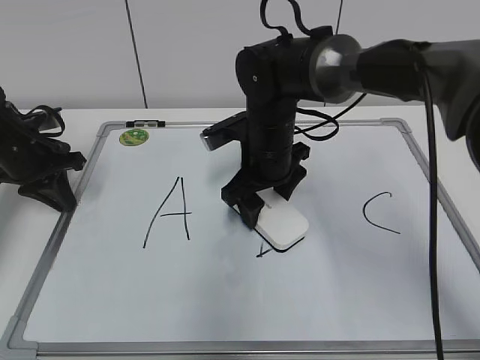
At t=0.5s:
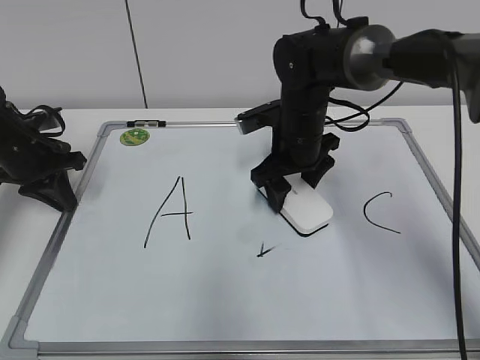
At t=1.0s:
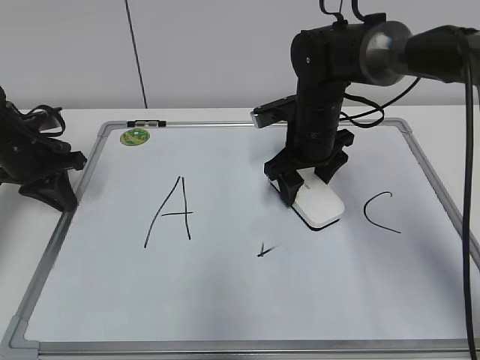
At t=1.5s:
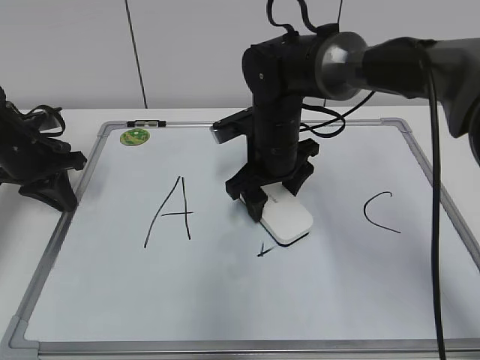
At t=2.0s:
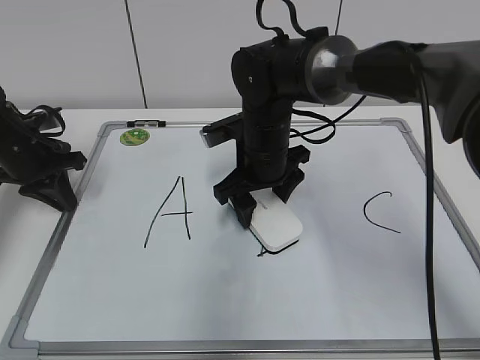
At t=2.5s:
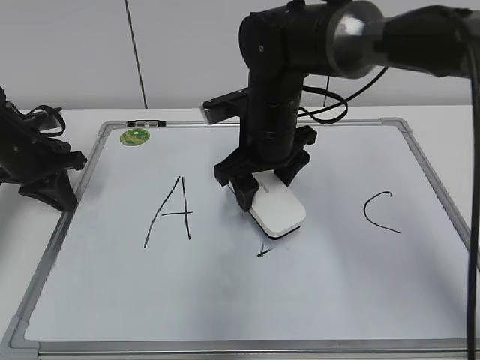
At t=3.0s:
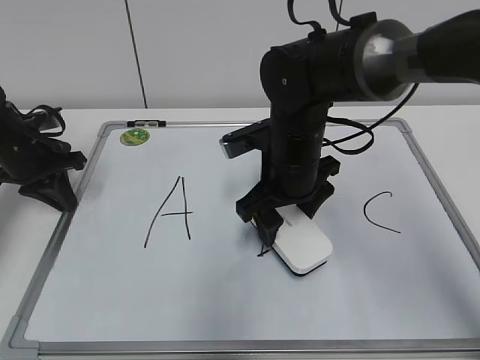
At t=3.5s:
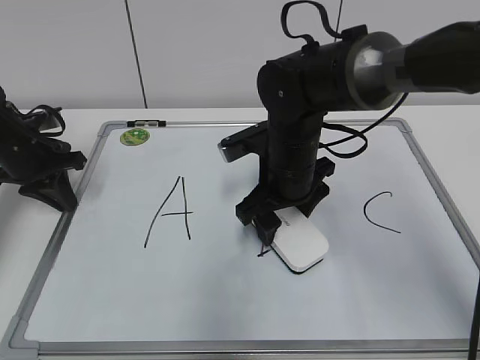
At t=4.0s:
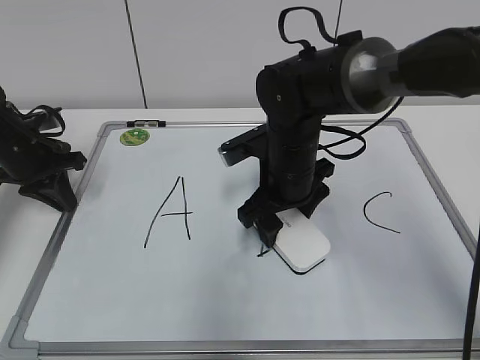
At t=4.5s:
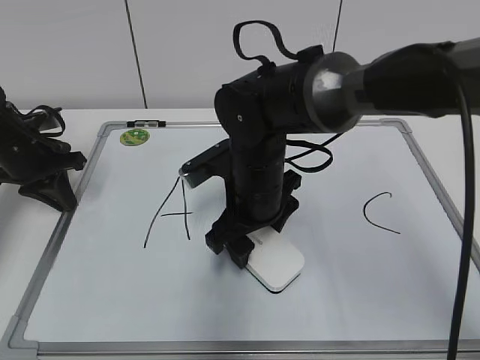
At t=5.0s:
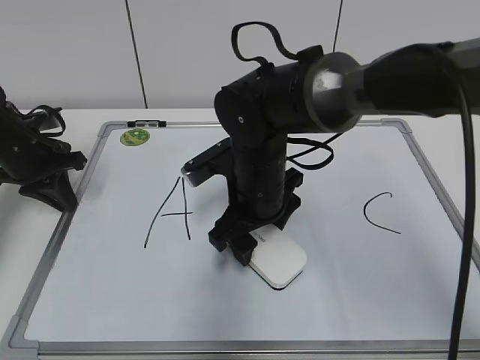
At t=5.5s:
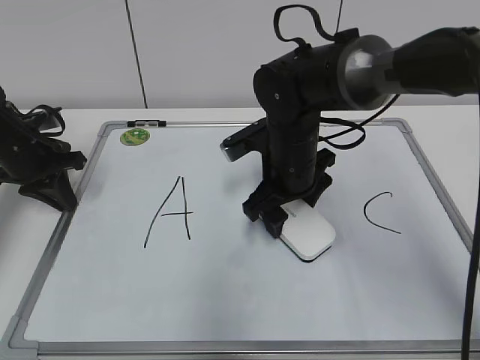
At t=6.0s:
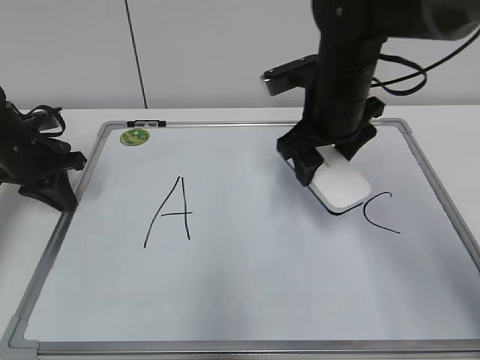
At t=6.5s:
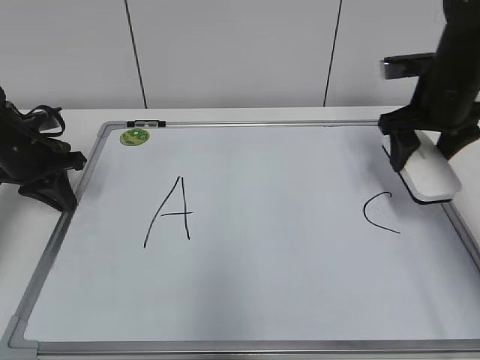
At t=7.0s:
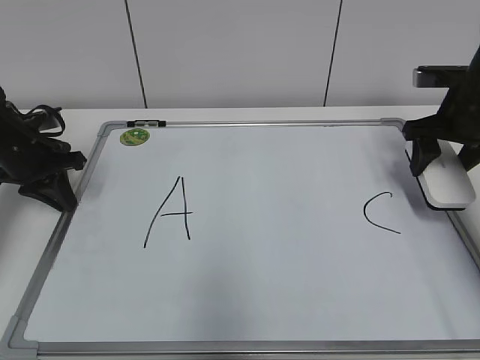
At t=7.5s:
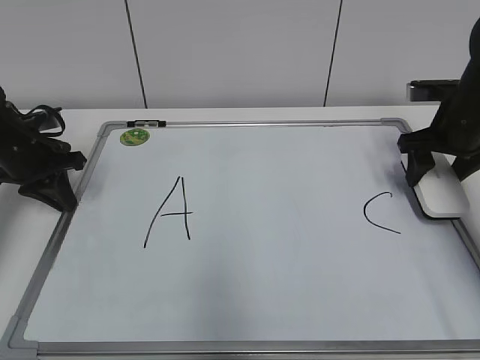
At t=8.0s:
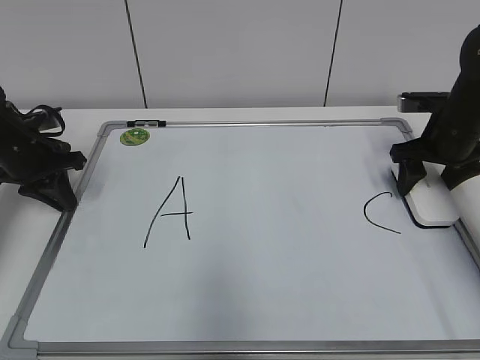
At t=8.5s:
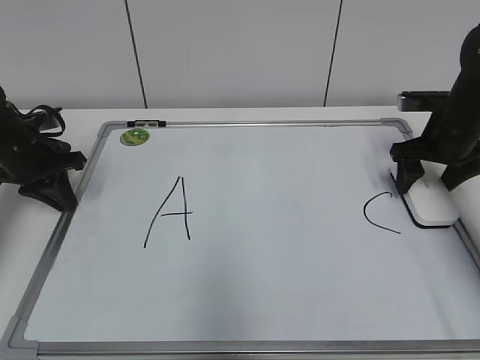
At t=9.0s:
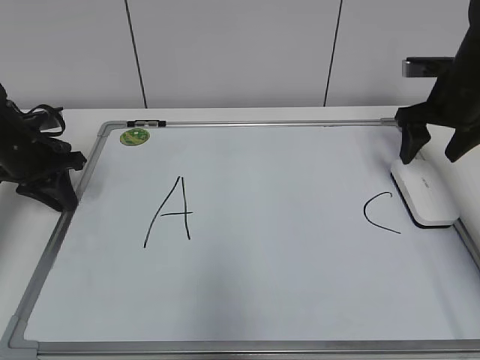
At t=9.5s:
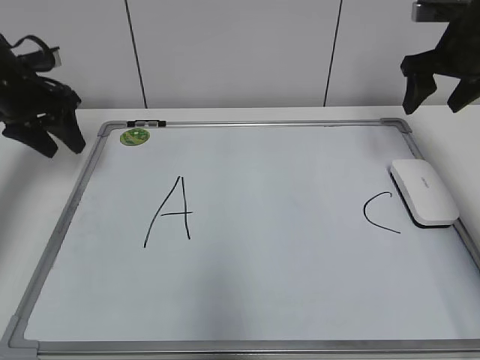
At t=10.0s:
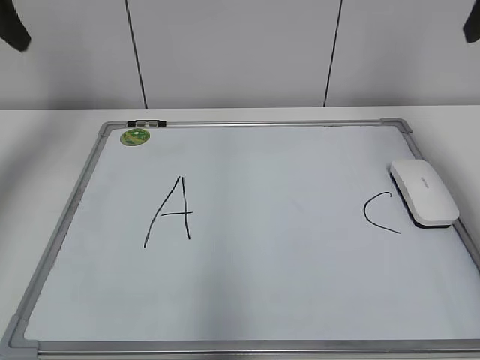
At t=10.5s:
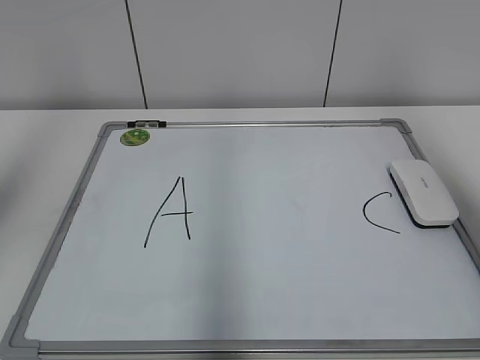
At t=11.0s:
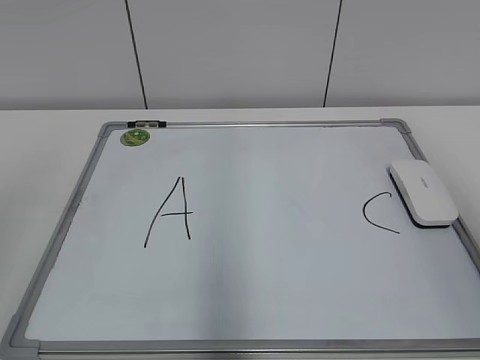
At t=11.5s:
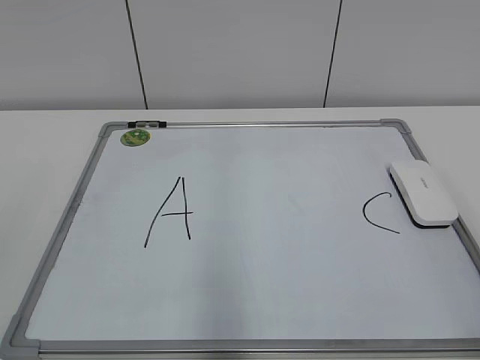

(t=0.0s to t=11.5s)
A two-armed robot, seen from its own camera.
Task of the whole recording: pick up the eraser on the blackboard and erase the letter "B".
Step, t=0.0s - t=5.0s: Erase the letter B with your right hand.
Step, t=5.5s - t=8.5s: Put down the eraser with your right hand.
t=2.0s - t=4.0s: There are only small adjustments of the grippers.
t=4.0s - t=6.0s: The right gripper travels upward and to the right by approximately 10 cm.
t=6.0s - t=7.5s: The right gripper shifts about 20 cm to the right.
t=7.5s - t=9.5s: Both grippers travel together upward, about 10 cm. The left gripper opens its fingers. Meanwhile the right gripper opens.
t=9.5s - t=11.5s: Both grippers move backward, roughly 40 cm.

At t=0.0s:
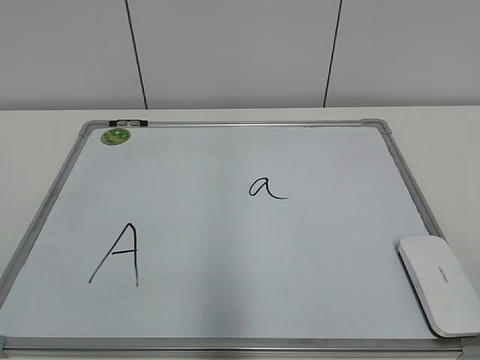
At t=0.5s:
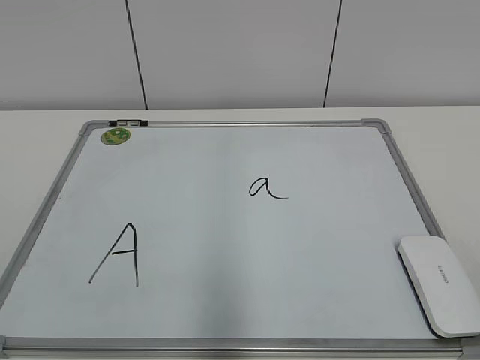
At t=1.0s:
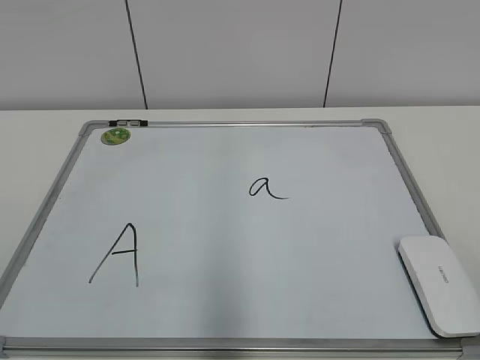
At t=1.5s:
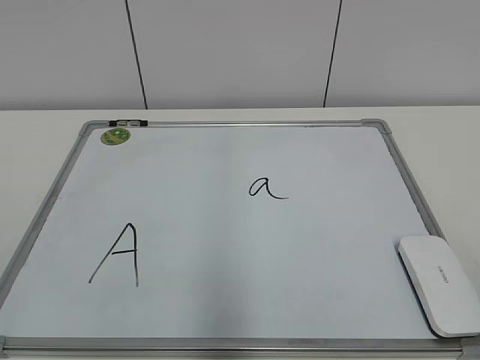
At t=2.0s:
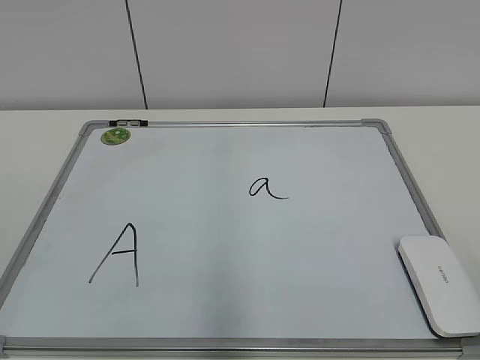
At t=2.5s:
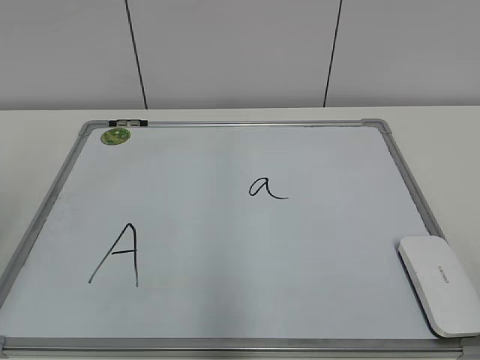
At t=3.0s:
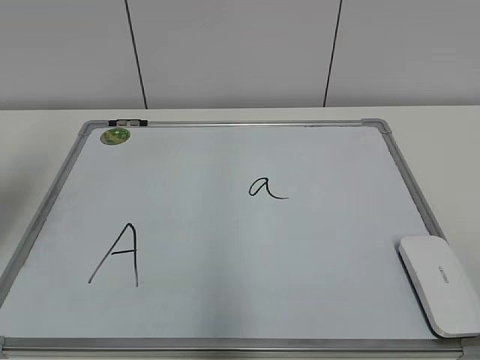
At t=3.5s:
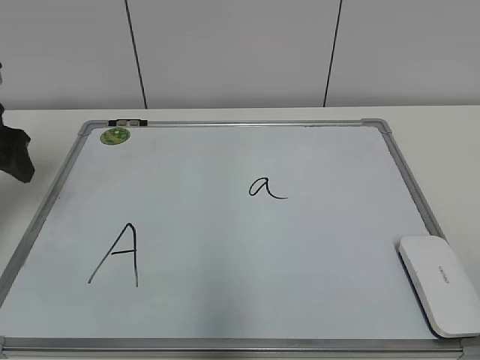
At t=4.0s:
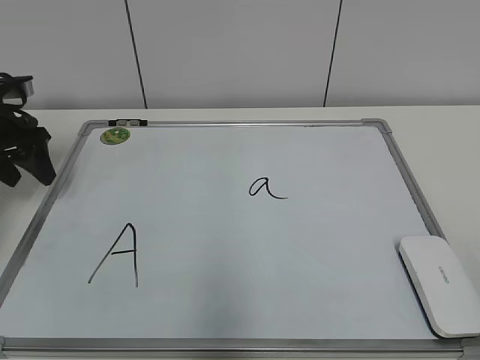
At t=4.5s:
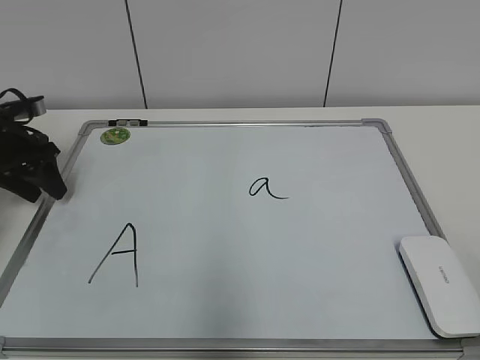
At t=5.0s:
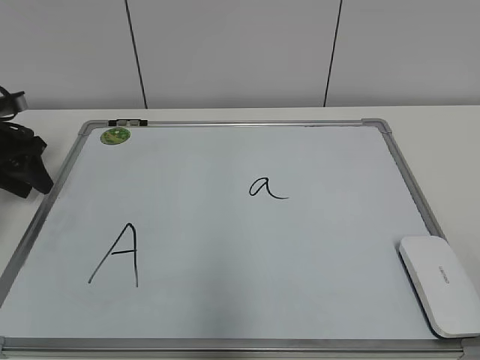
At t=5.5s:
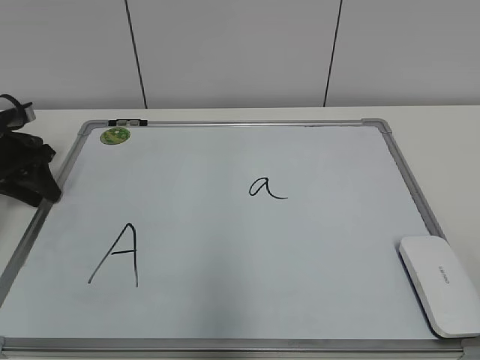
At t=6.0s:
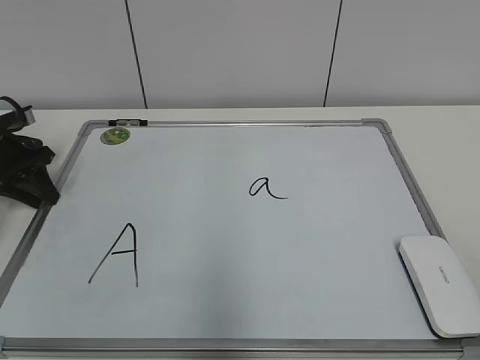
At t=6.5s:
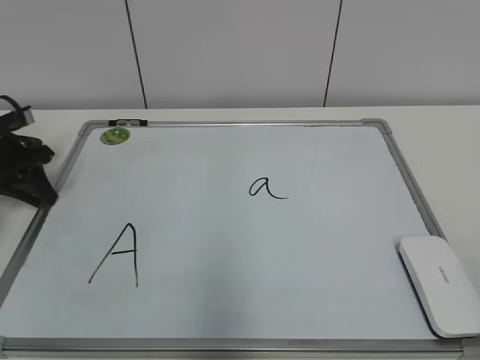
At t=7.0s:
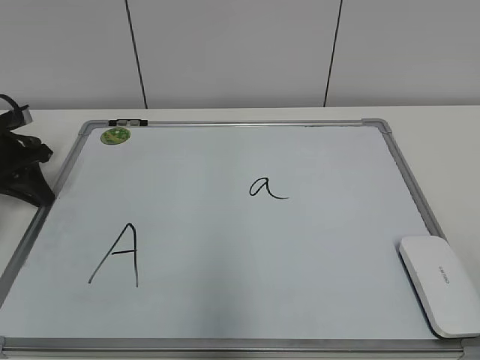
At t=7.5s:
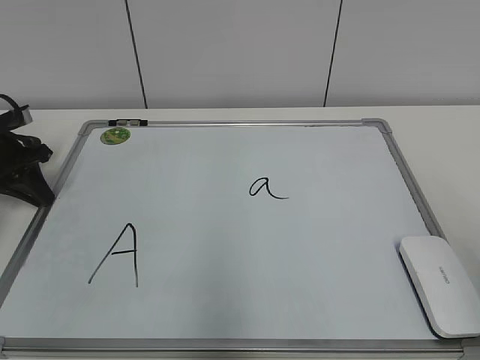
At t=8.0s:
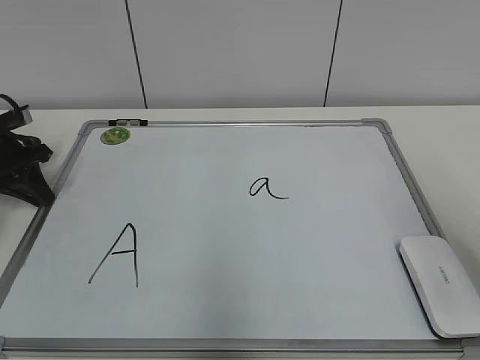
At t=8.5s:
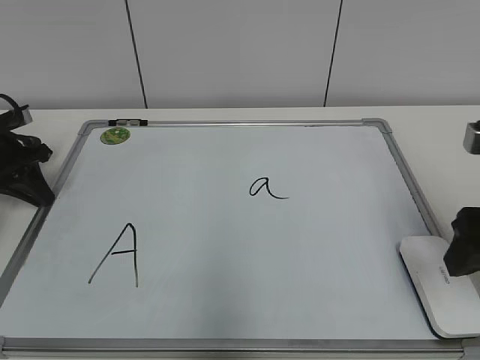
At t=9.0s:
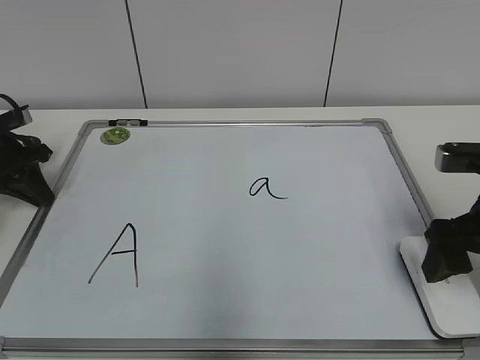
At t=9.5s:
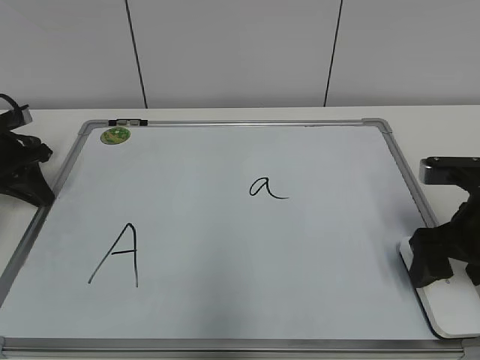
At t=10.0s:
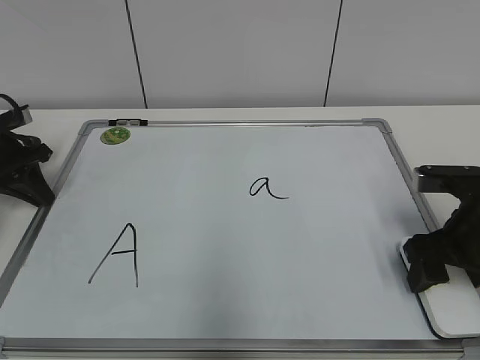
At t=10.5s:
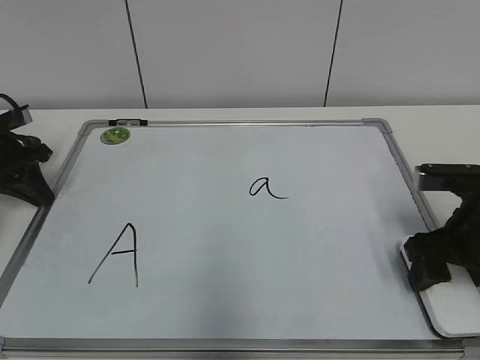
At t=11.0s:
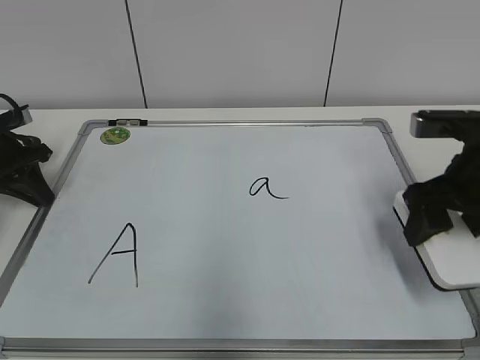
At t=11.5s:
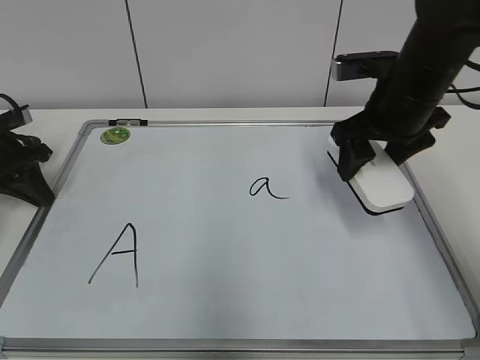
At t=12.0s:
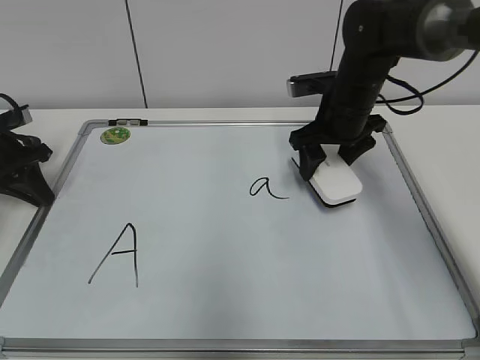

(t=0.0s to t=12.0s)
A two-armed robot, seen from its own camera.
Task of the whole recording: pick up the eraser on the blackboard and erase the letter "a".
Step, t=0.0s - t=6.5s: Hold the drawing board steady with your left hand.
Step, t=7.0s - t=10.0s: Grab the eraser with your right hand.
t=2.0s - t=4.0s: The left gripper heads forward, covering about 40 cm.
t=4.0s - t=6.0s: The left gripper travels downward by some 5 cm, and closes.
t=6.0s - t=8.0s: The right gripper is displaced forward by roughly 15 cm.
t=8.0s - t=10.0s: The right gripper goes some 20 cm downward and forward, and opens and closes again.
t=10.0s - t=12.0s: The right gripper travels forward and to the left by about 20 cm.

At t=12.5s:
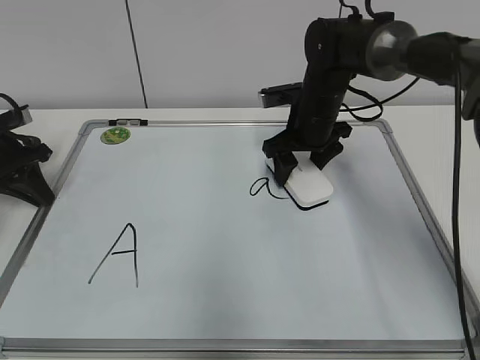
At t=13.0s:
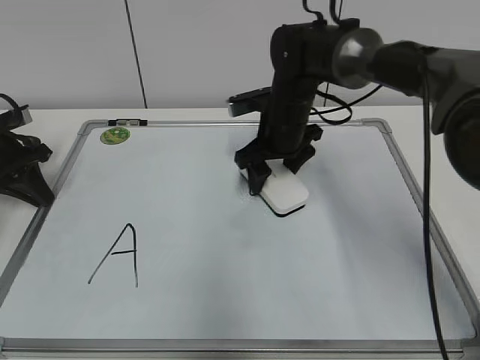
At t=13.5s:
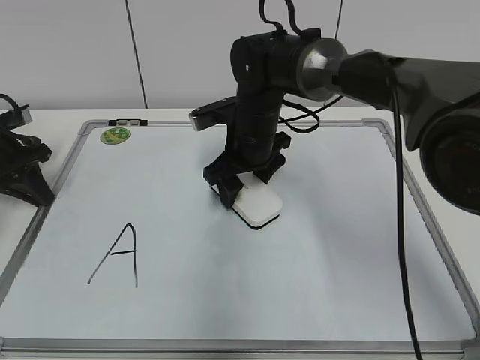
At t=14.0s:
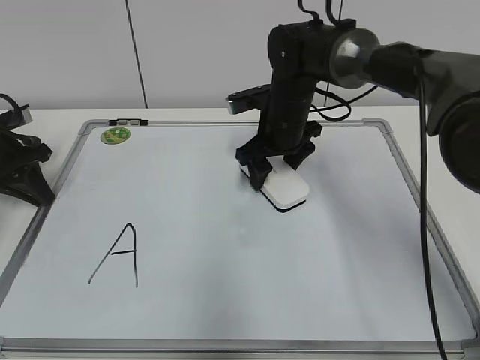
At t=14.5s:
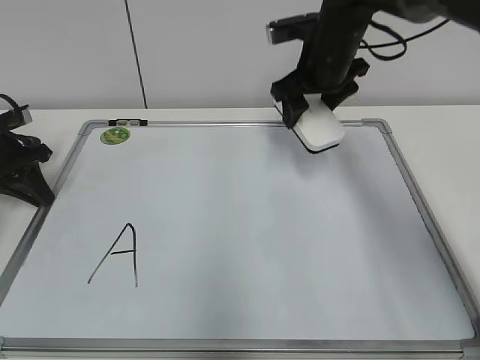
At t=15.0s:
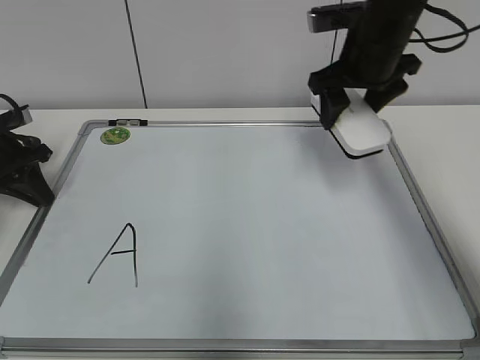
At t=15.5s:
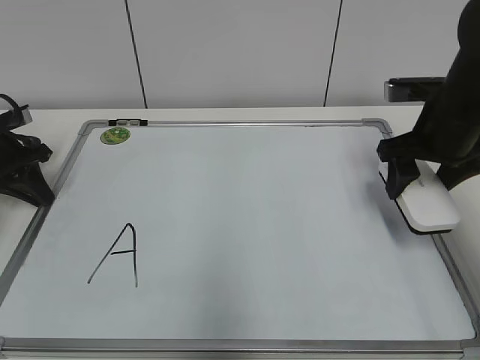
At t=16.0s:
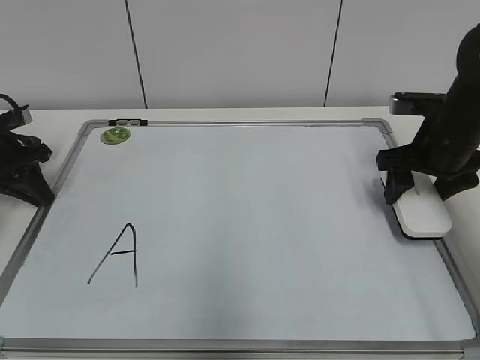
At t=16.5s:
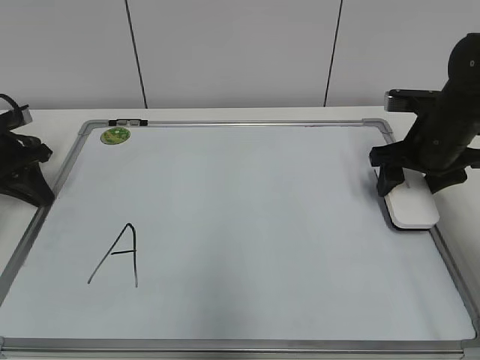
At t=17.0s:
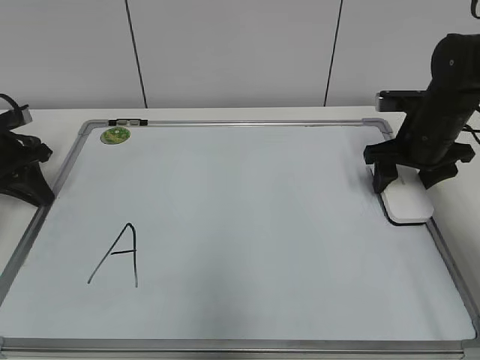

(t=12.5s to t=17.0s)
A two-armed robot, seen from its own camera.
Task of the whole recording: pick up the eraser on the blackboard and erase the letter "a".
t=12.5s - t=14.5s: The right gripper moves upward, about 10 cm, and moves roughly 10 cm to the left and comes back.
t=14.5s - t=17.0s: The right gripper heads to the right and downward, covering roughly 15 cm.
